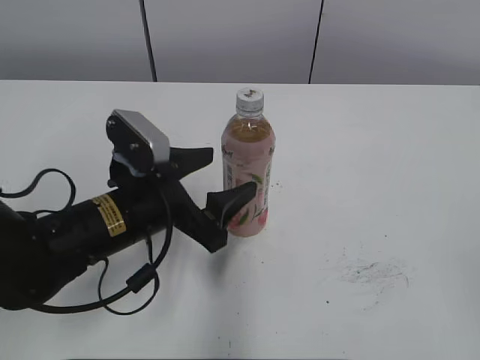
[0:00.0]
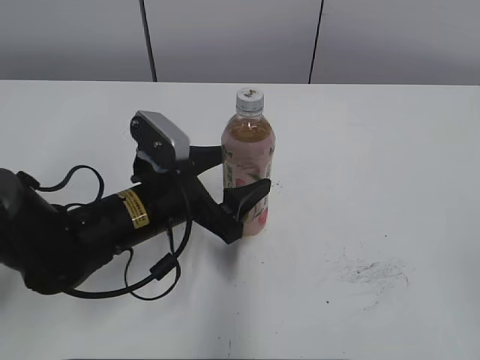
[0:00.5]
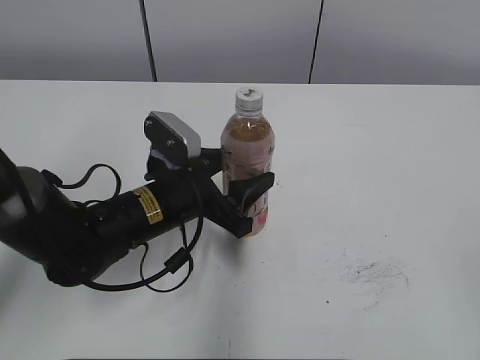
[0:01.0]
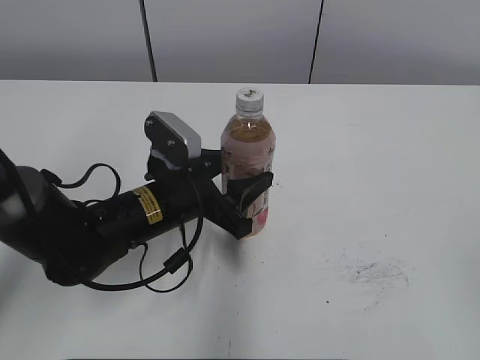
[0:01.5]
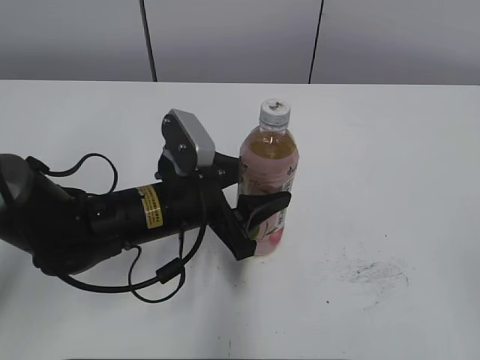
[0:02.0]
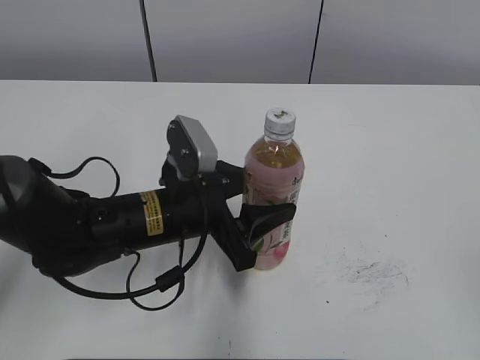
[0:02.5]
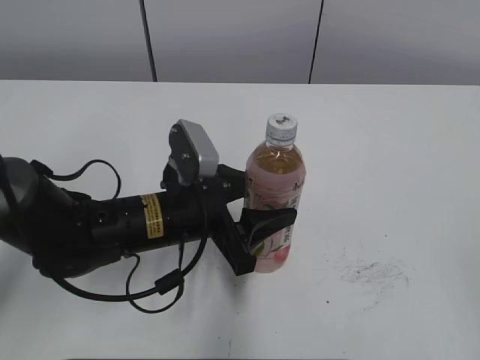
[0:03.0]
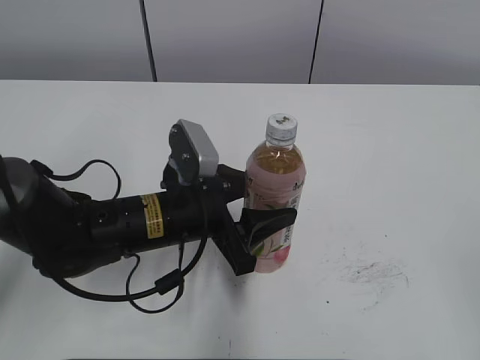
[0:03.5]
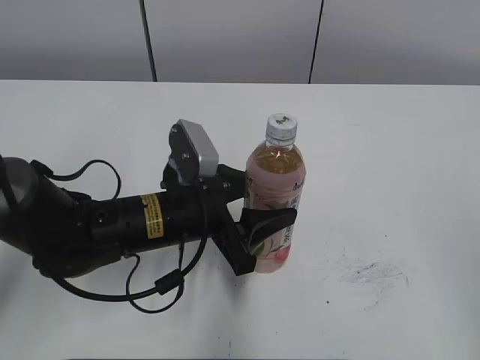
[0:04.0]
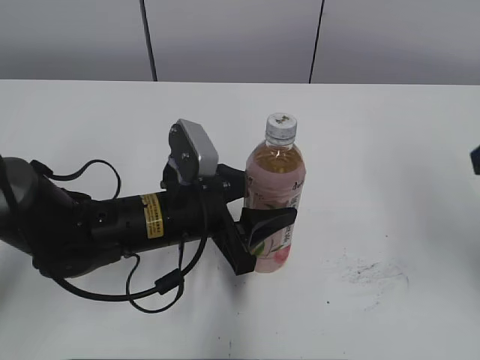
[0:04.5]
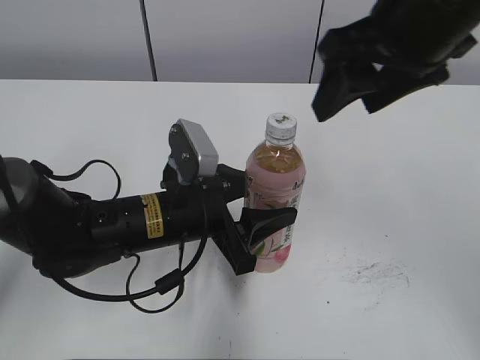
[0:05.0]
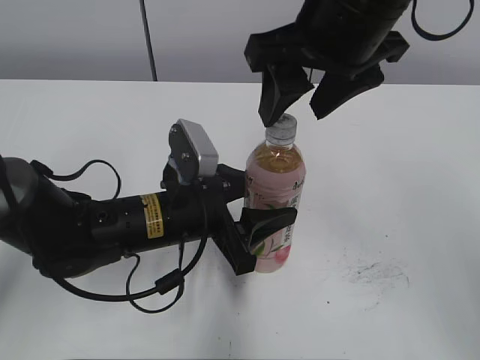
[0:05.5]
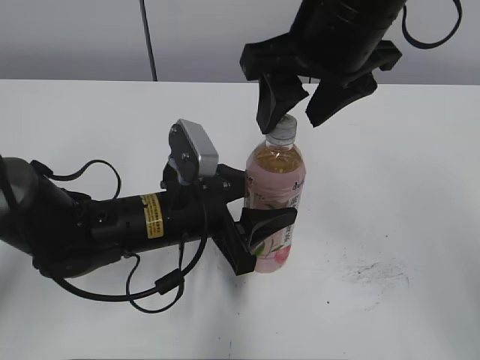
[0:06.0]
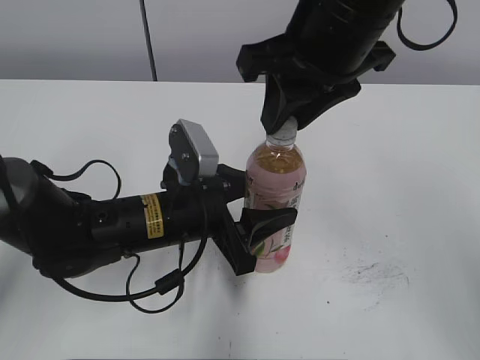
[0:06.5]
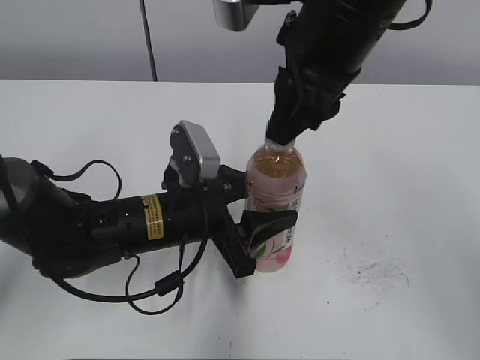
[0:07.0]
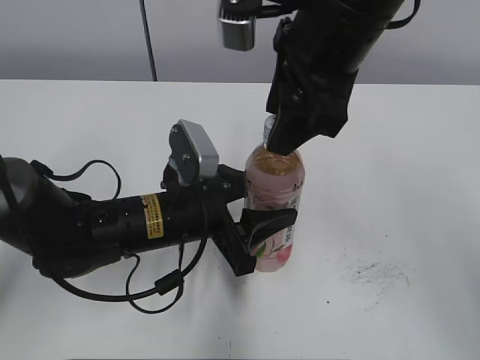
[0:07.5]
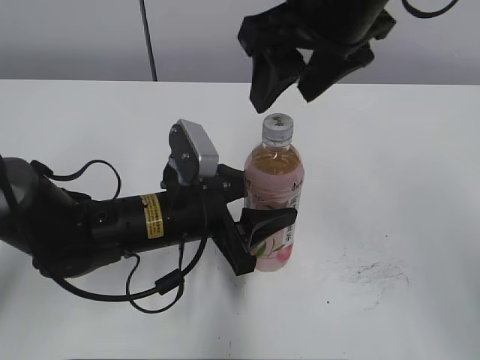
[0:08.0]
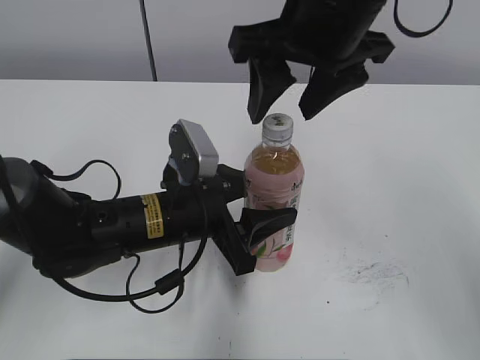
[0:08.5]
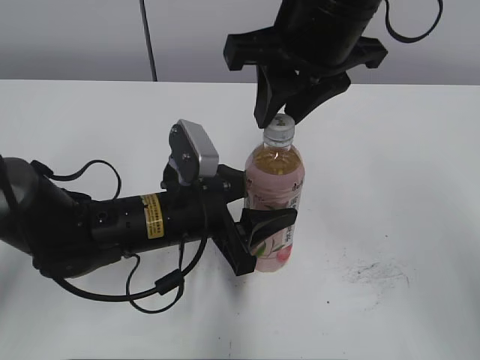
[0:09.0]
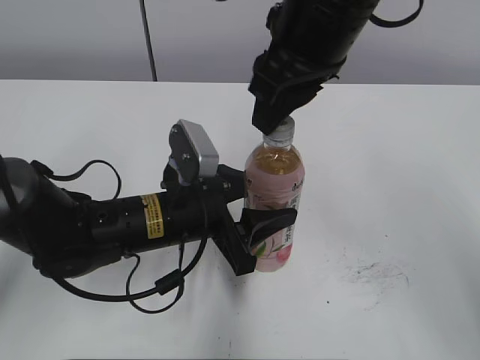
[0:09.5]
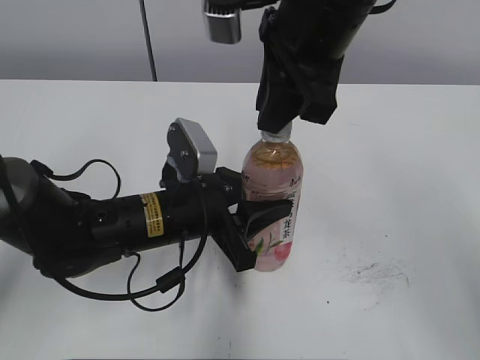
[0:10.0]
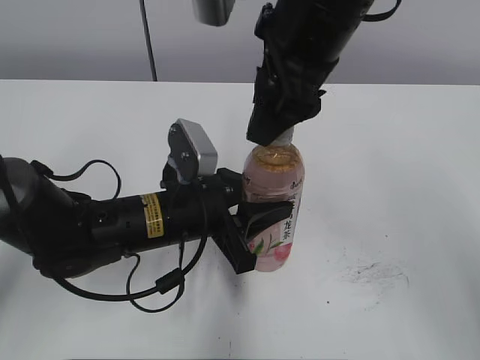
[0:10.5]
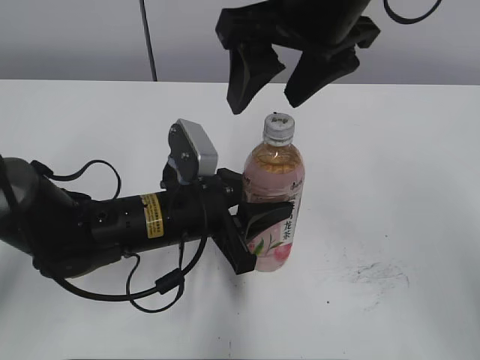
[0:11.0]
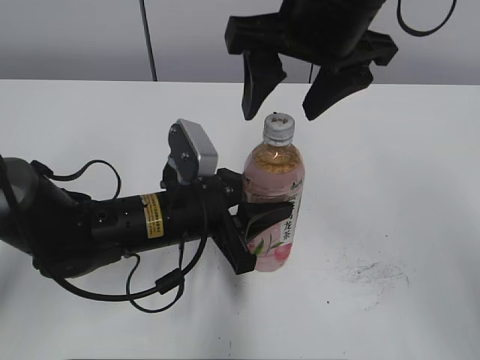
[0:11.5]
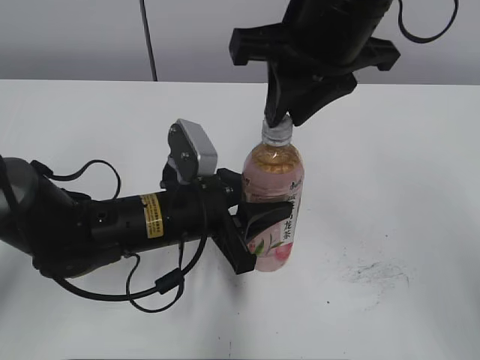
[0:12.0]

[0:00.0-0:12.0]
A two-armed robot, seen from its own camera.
Step, 0:01.5 to 0:02.5: Move the Peach Oolong Tea from left to right.
0:00.0 to 0:02.0: The left gripper closes its fingers.
0:02.0 to 0:04.0: The grippers make only small movements.
0:04.0 to 0:06.0: The right gripper is displaced forward and to the left by approximately 35 cm.
0:06.0 to 0:08.0: The right gripper closes, then reopens.
0:08.0 to 0:10.0: The right gripper closes up; the left gripper closes up.
0:10.0 to 0:12.0: The right gripper opens, then closes again.

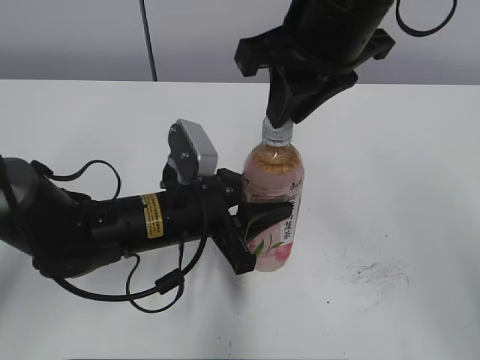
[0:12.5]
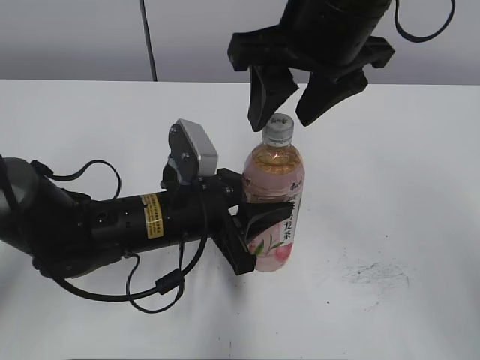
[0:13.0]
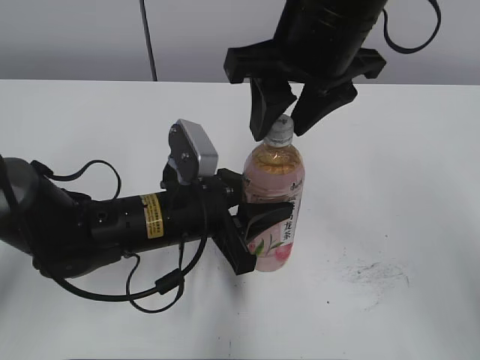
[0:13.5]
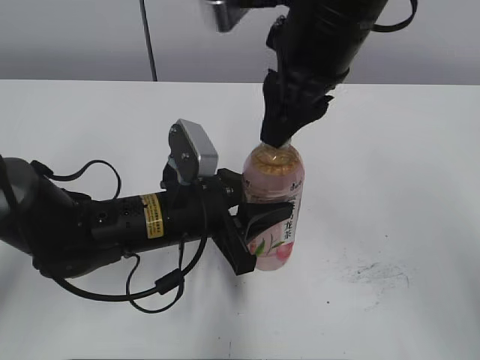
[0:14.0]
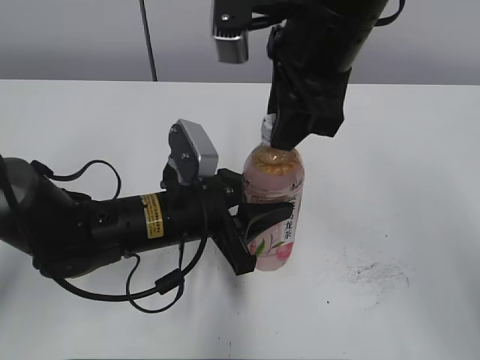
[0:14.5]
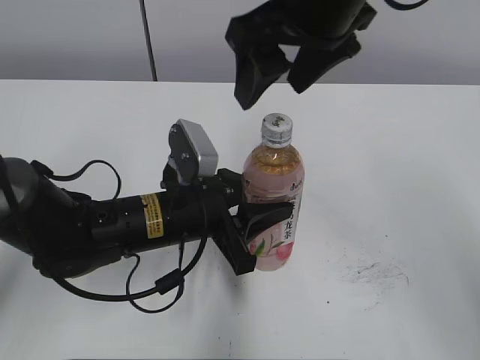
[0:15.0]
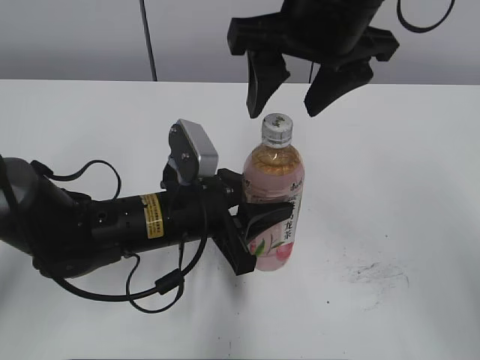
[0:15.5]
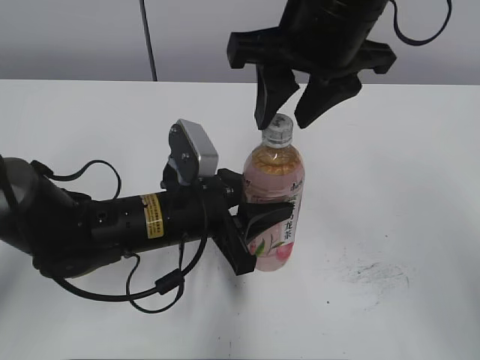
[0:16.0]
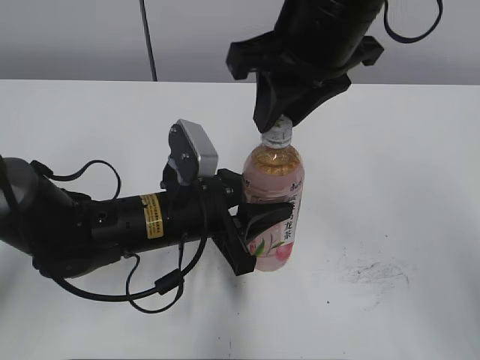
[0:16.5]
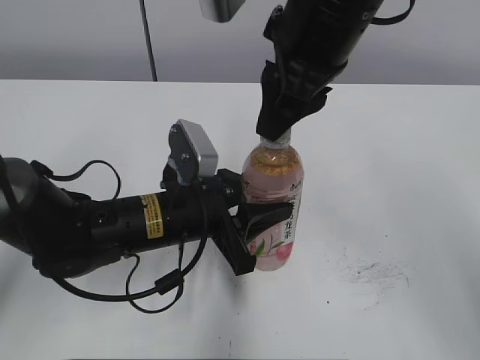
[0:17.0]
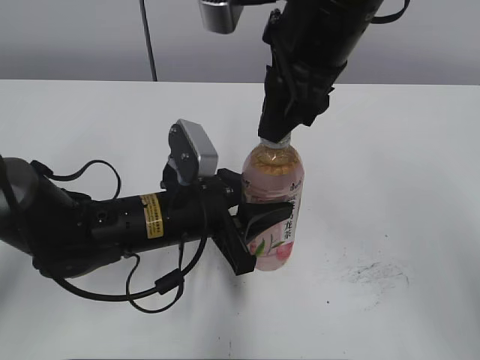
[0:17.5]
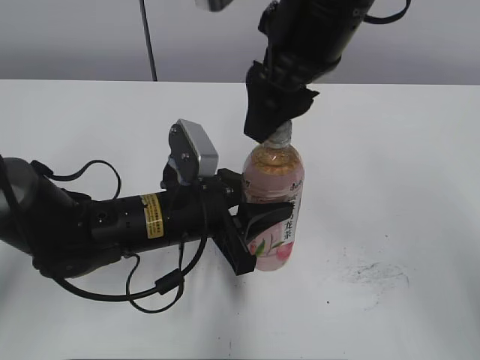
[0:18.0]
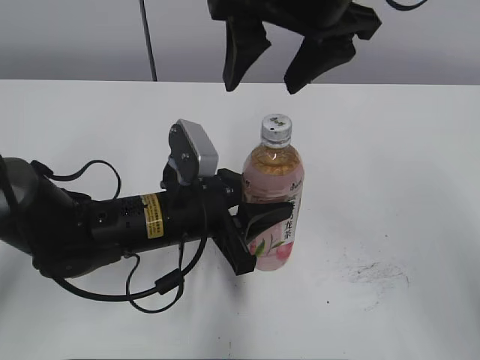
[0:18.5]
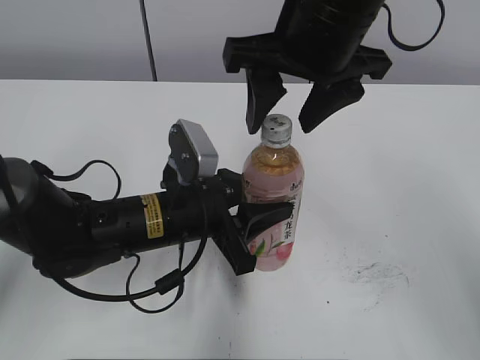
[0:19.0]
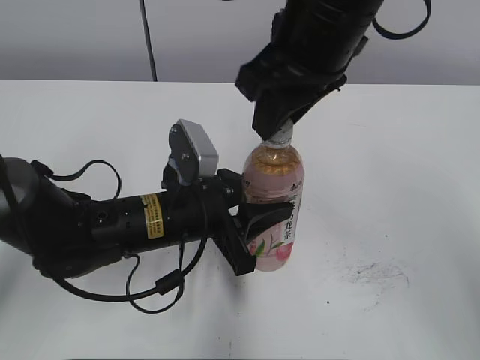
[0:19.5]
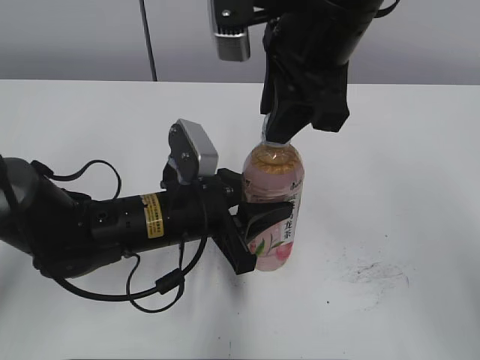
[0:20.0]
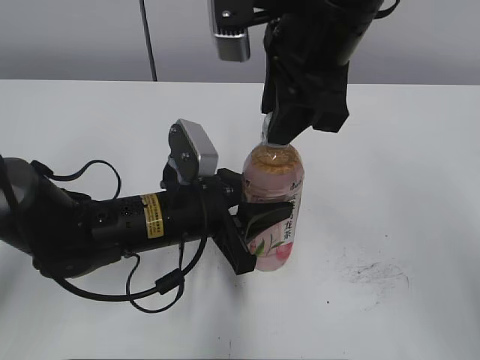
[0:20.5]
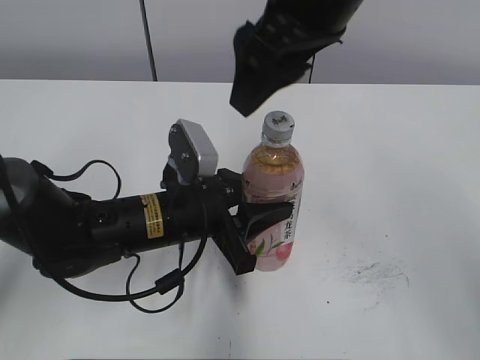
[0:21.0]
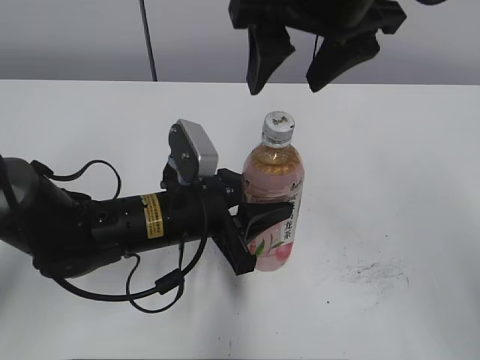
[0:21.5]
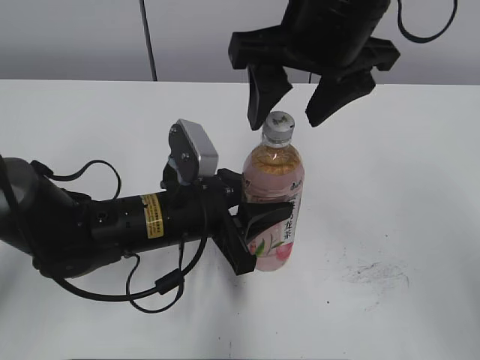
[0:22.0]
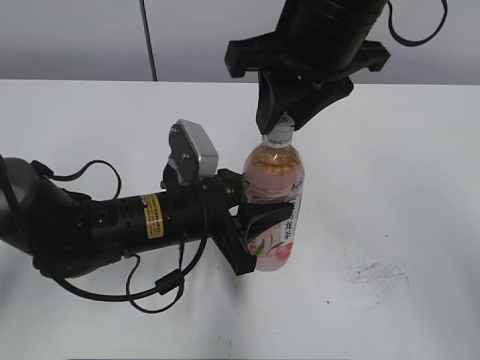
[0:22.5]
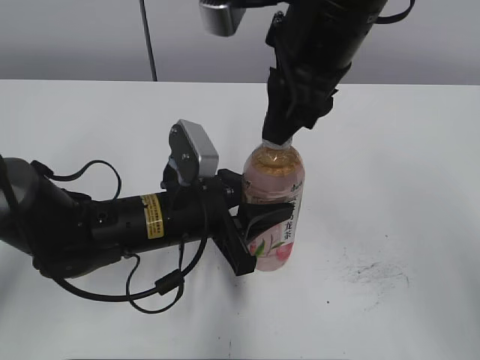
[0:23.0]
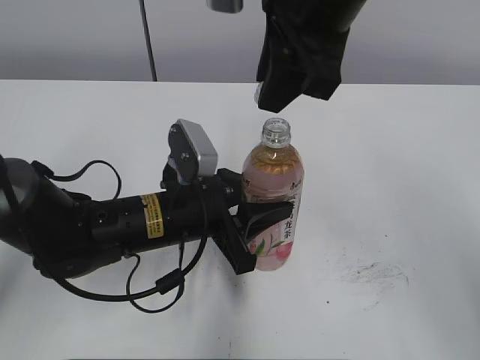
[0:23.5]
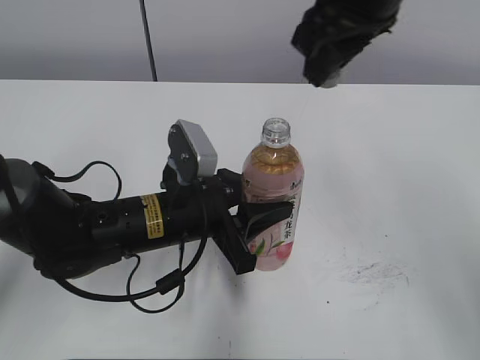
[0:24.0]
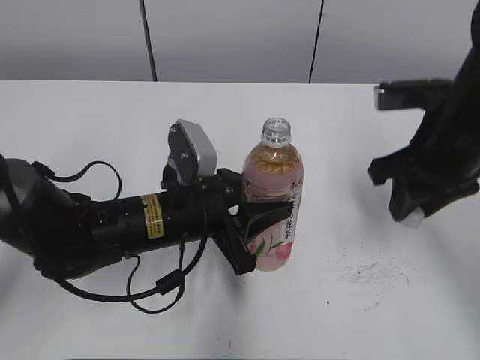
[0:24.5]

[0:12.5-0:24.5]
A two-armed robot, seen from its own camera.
0:12.5 to 0:14.5: The right gripper opens, then closes again.
0:14.5 to 0:16.5: The right gripper opens, then closes once more.
0:16.5 to 0:18.5: The right gripper opens its fingers.
0:18.5 to 0:20.5: The right gripper closes up.
0:20.5 to 0:22.5: The right gripper opens and closes again.
0:22.5 to 0:24.5: The right gripper shifts roughly 15 cm to the right and downward.

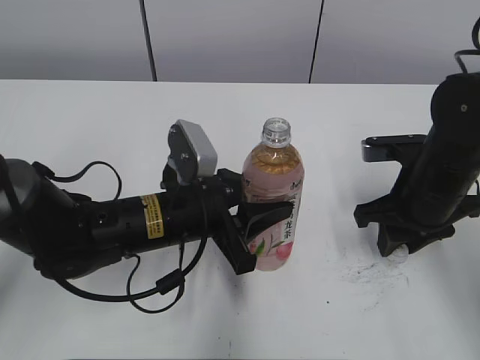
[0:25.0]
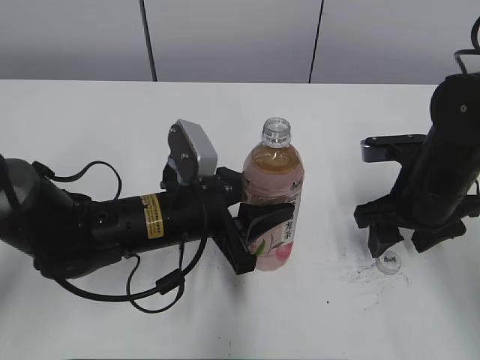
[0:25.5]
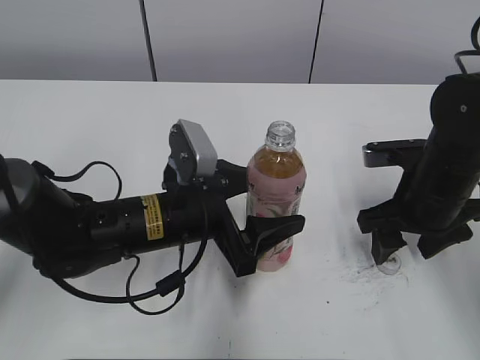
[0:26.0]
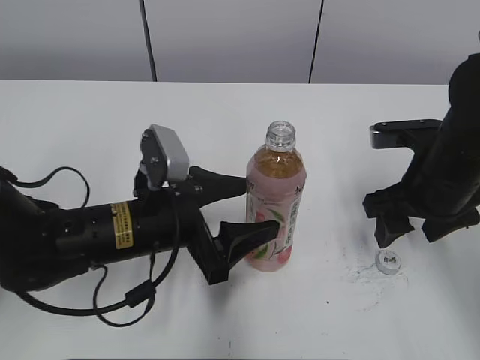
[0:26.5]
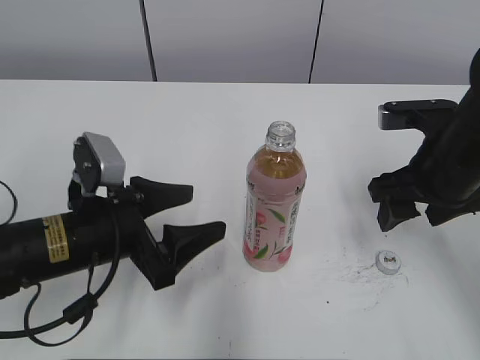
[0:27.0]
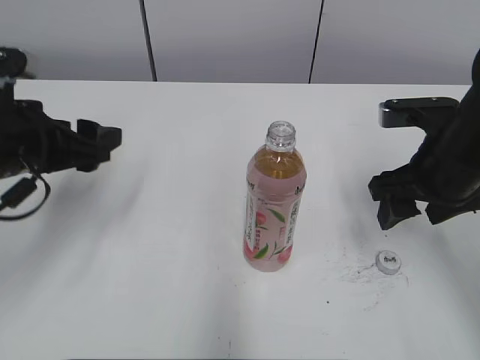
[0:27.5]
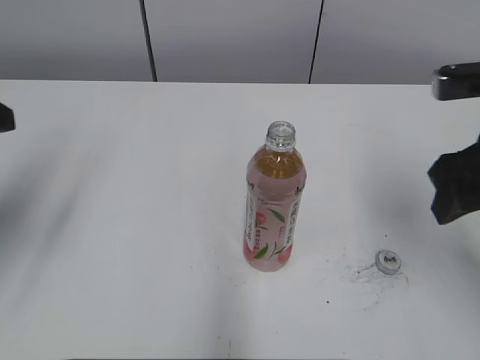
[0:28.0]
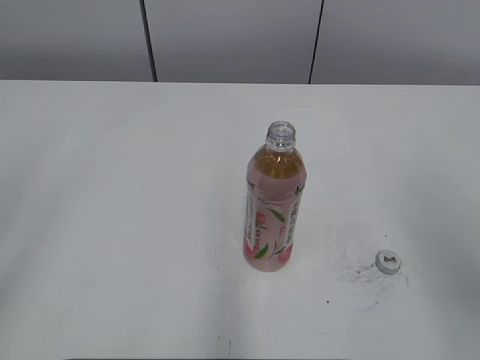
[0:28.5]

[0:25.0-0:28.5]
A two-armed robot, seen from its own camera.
0:25.0 to 0:27.0: The left gripper goes about 10 cm to the left, and opens, while the right gripper opens.
0:27.0 to 0:28.5: The left gripper shifts some 30 cm upward, to the left and backward; the right gripper moves backward and upward, approximately 20 cm.
